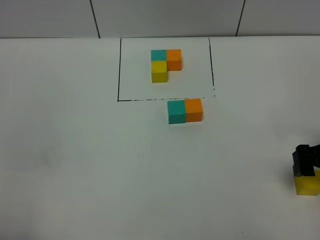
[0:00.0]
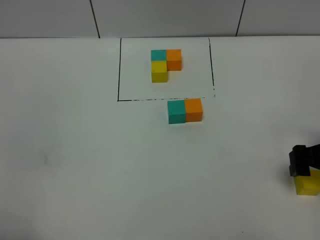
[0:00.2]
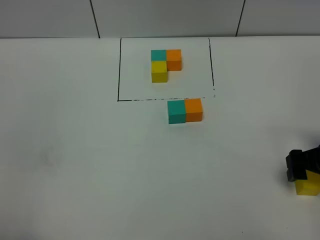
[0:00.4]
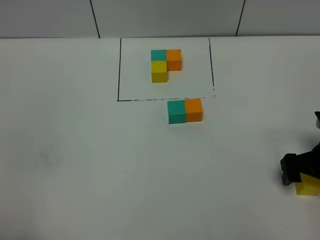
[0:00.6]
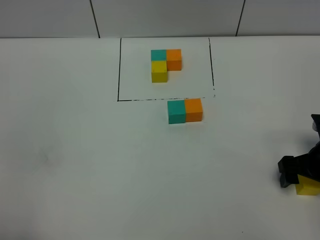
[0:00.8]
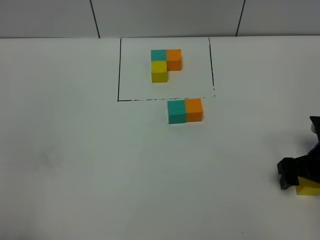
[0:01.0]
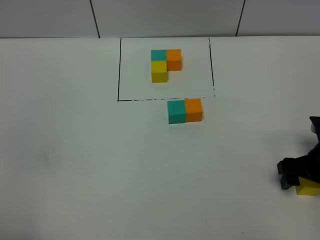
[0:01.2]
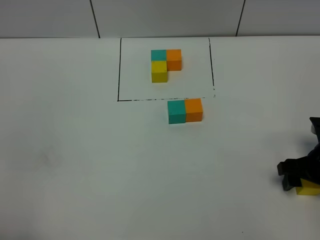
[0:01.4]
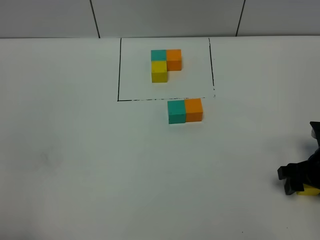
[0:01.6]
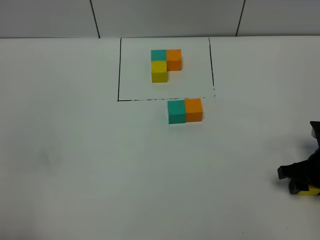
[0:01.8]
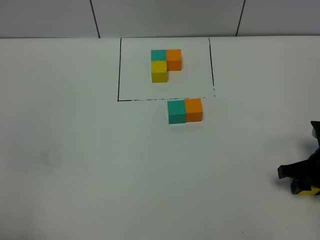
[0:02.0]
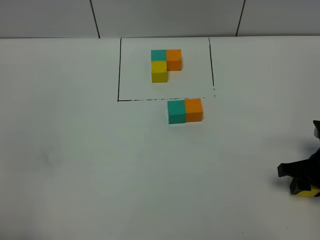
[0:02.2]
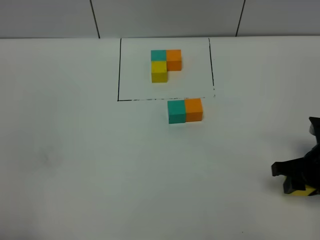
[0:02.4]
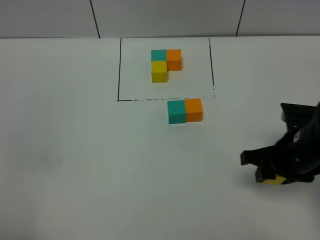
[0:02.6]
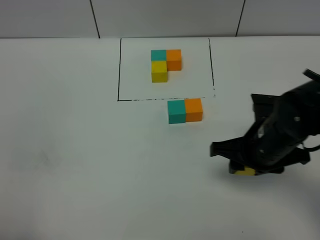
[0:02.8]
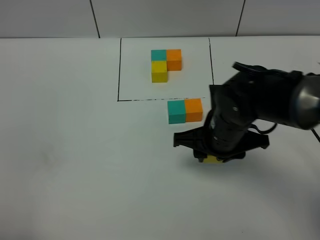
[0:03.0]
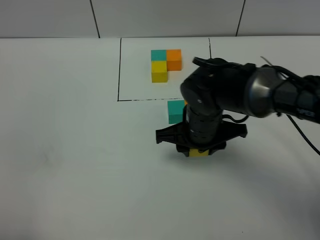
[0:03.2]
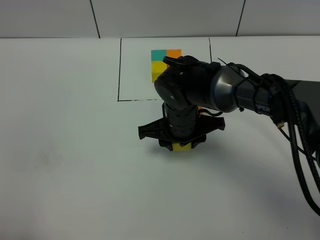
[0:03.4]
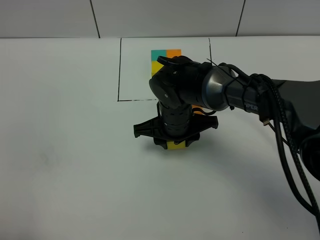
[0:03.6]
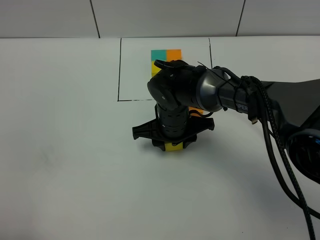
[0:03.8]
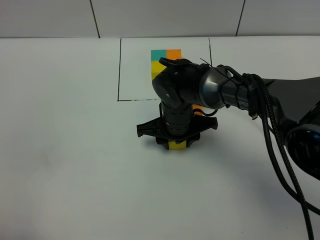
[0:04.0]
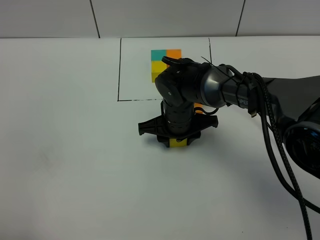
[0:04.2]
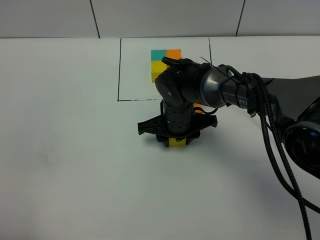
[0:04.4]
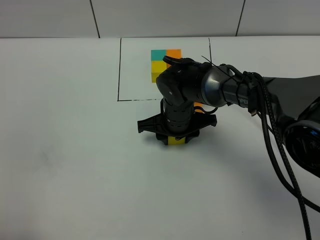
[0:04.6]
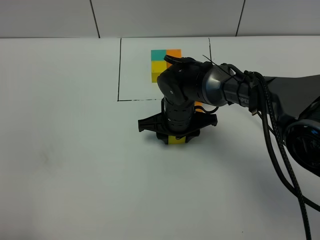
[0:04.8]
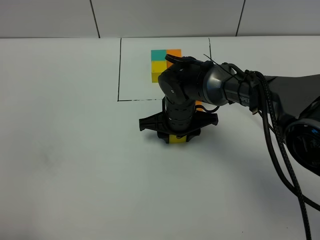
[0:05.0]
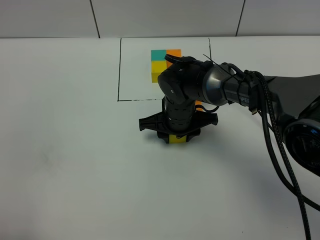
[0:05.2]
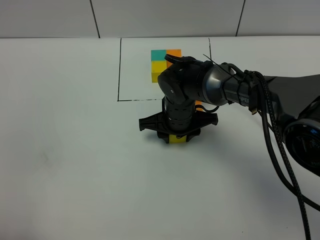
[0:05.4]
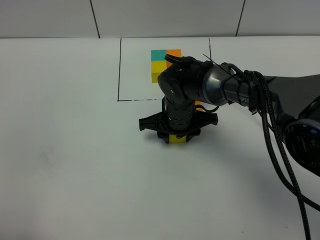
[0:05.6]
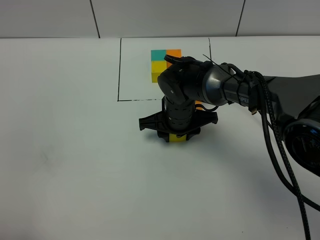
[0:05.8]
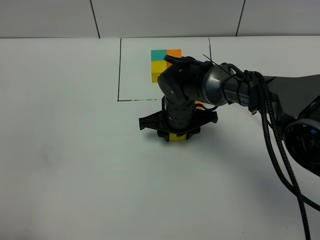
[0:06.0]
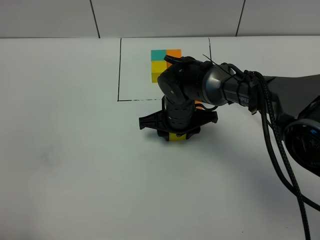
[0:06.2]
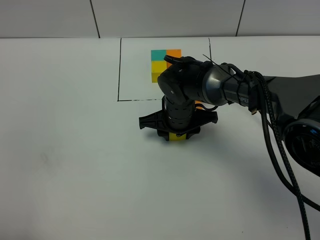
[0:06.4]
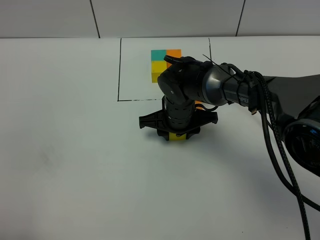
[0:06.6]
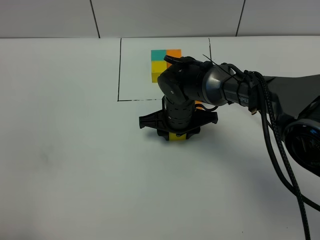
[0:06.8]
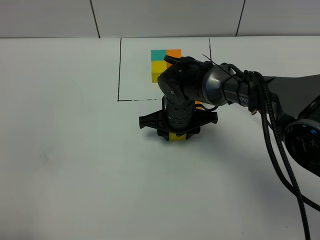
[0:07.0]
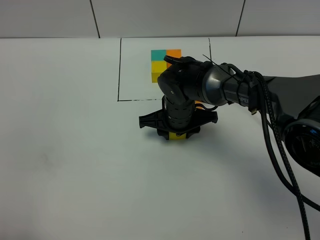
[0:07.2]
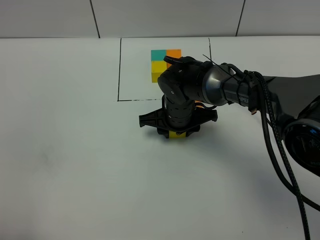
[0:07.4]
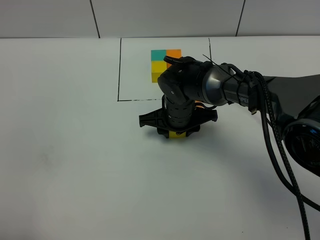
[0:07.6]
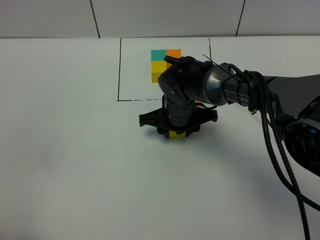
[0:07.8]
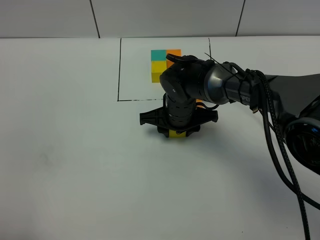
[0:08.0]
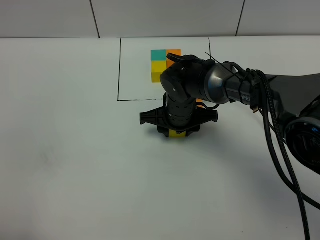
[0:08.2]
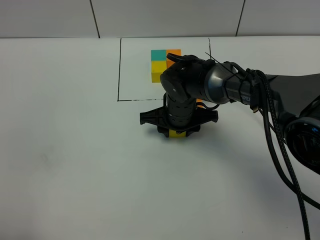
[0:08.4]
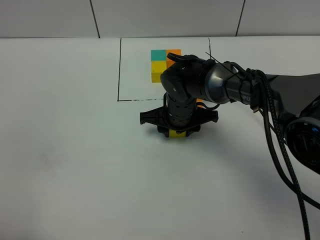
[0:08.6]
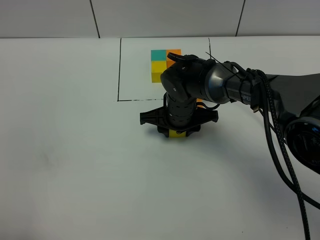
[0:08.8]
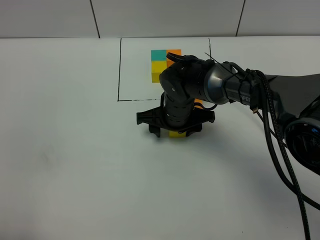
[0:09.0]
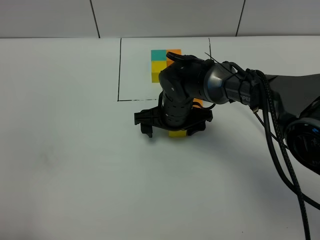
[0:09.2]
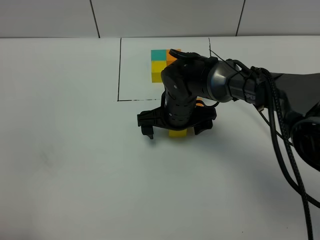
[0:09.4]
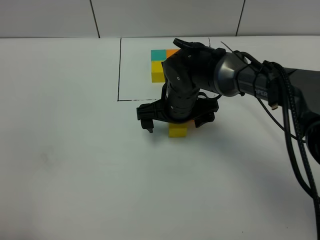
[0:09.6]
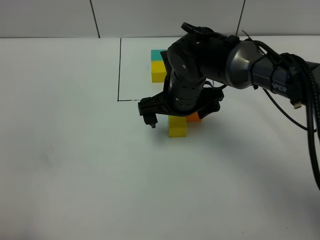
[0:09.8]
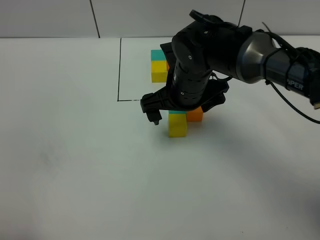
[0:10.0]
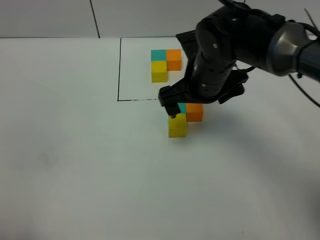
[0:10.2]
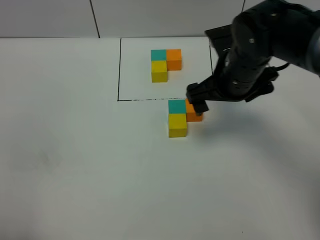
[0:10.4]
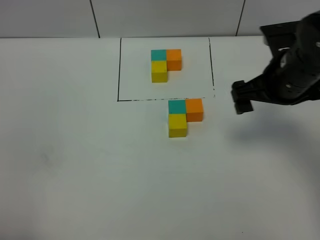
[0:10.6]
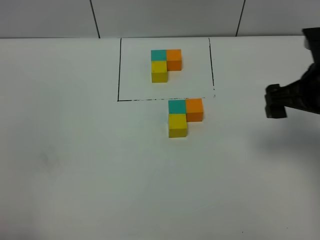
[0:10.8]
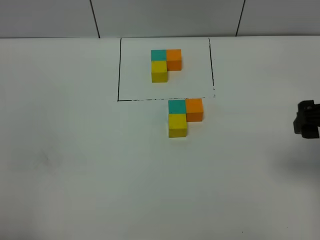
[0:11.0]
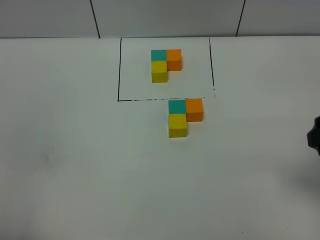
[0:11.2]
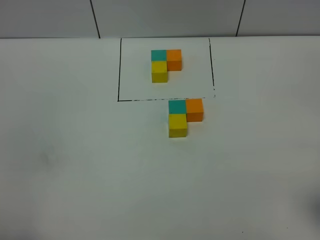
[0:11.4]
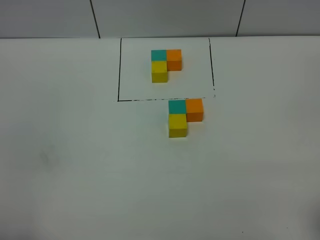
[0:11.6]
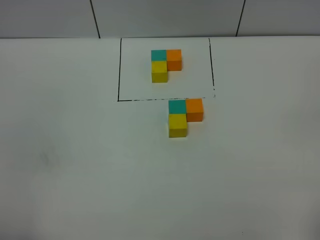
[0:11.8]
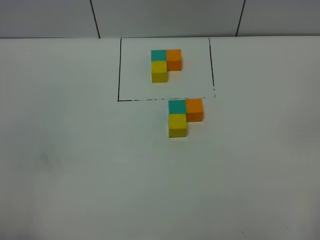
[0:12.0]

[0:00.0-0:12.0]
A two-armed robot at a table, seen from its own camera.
Task of the whole recording: According to the building block template in front, assemble the scattered blocks together.
Step, 0:00.0 to 0:08.8: Put the yellow build block on the behind of the green build block.
0:00.0 to 0:01.6: The right gripper goes about 5 cm downward, and closes its fingers.
0:01.6 to 0:03.0: The right gripper shifts about 20 cm to the left, and closes.
0:03.0 to 0:04.4: The right gripper is displaced forward, downward and to the left by roughly 10 cm.
0:04.4 to 0:07.6: Both grippers stay put.
0:07.6 to 0:09.0: The right gripper opens.
0:09.0 to 0:10.4: The right gripper moves upward and to the right, about 15 cm, and opens.
0:10.4 to 0:12.0: The right gripper is displaced backward and to the right by about 35 cm.

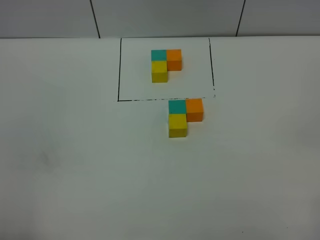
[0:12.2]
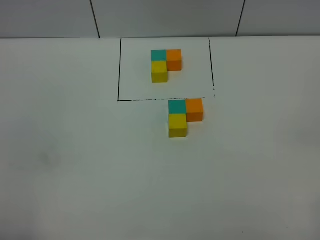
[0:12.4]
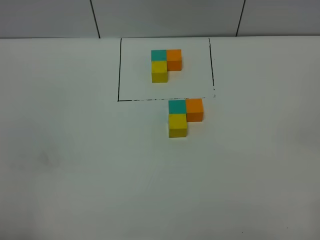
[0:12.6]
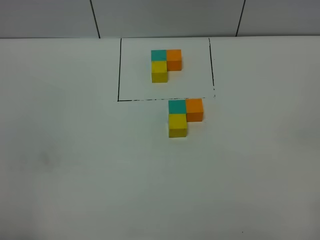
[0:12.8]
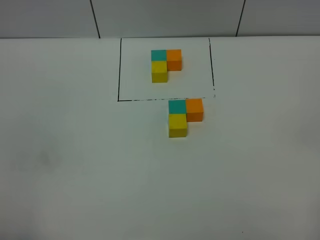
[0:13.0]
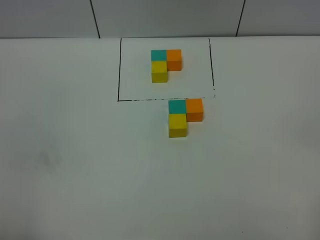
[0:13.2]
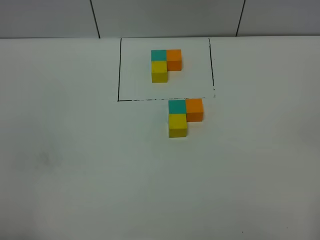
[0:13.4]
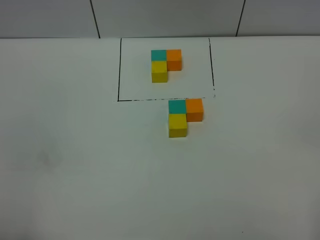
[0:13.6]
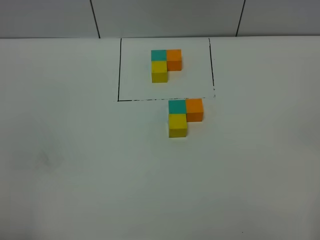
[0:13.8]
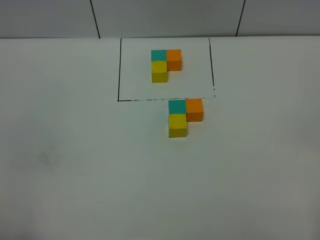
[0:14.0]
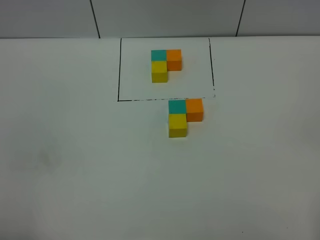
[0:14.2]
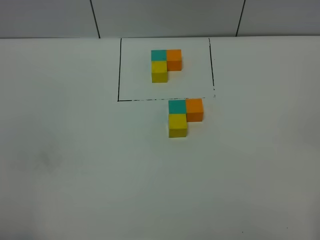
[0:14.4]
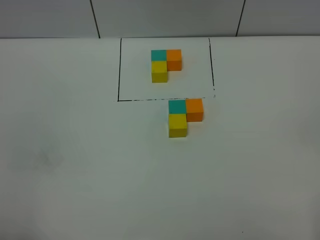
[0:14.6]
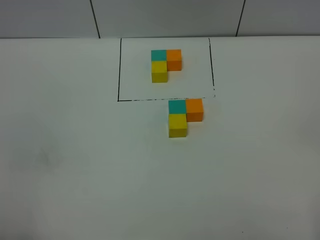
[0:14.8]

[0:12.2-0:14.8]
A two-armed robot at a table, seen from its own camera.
Task of the whole recording: According to the building block template in front, assemble the scattered blocks together.
0:13.4 to 0:14.8: Both grippers stay put.

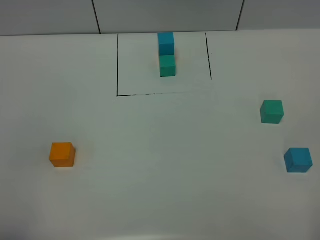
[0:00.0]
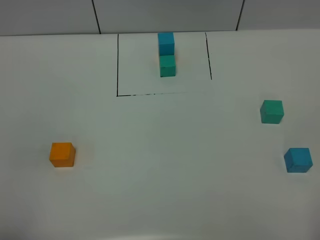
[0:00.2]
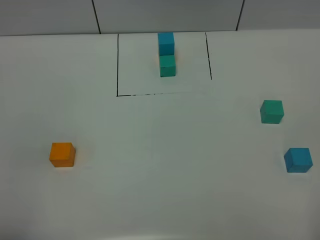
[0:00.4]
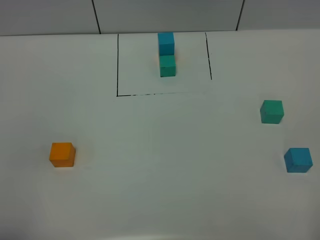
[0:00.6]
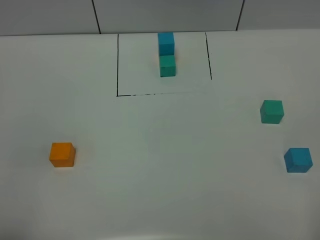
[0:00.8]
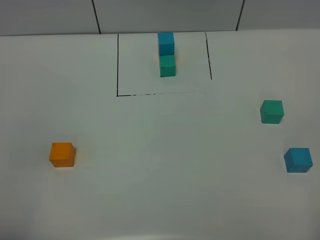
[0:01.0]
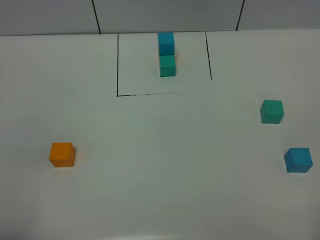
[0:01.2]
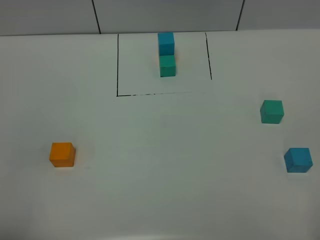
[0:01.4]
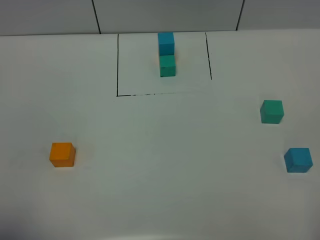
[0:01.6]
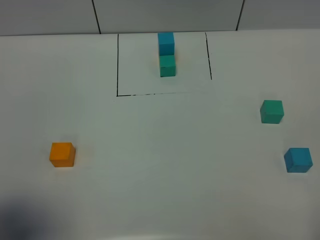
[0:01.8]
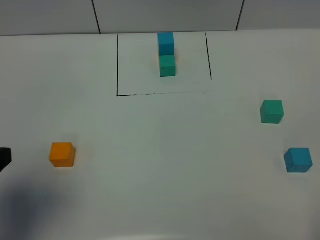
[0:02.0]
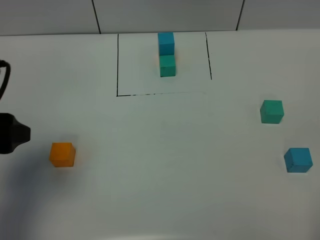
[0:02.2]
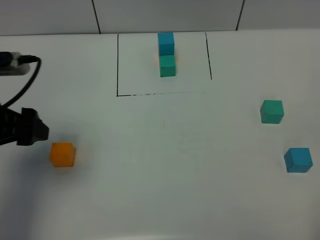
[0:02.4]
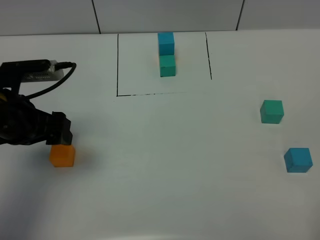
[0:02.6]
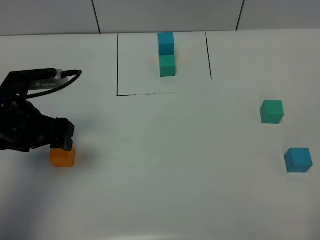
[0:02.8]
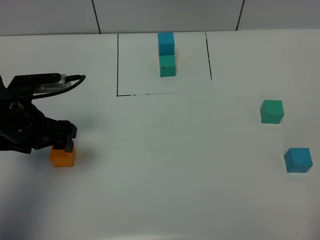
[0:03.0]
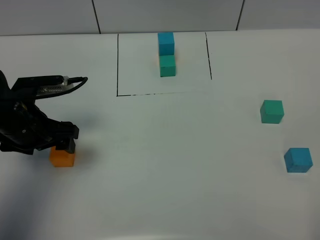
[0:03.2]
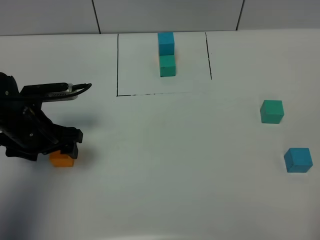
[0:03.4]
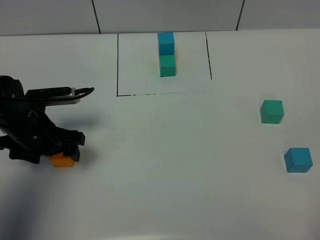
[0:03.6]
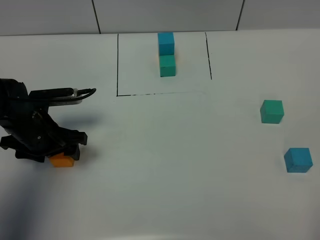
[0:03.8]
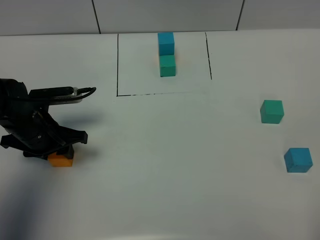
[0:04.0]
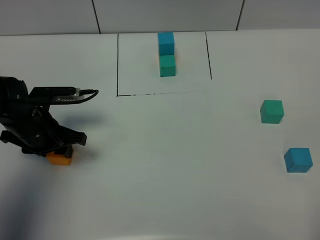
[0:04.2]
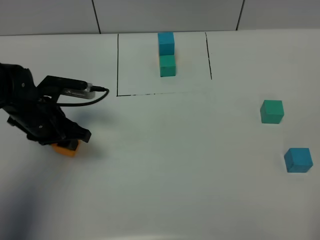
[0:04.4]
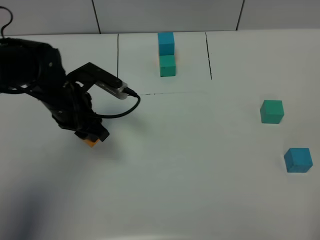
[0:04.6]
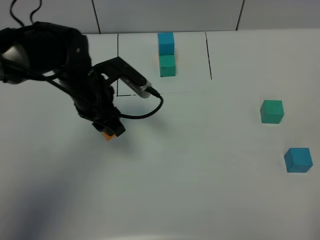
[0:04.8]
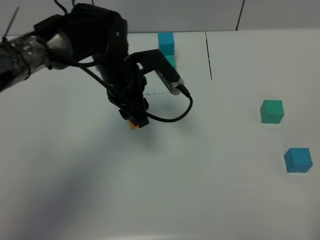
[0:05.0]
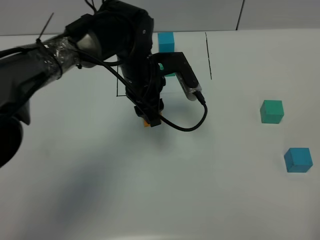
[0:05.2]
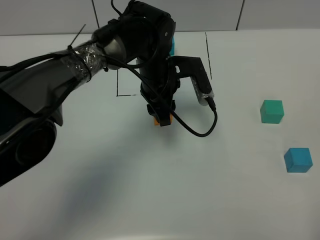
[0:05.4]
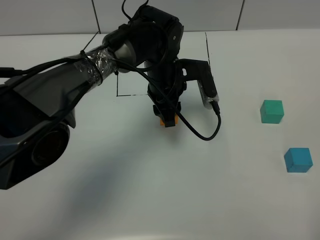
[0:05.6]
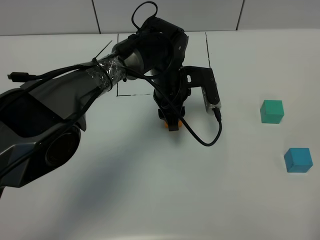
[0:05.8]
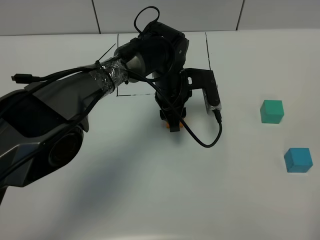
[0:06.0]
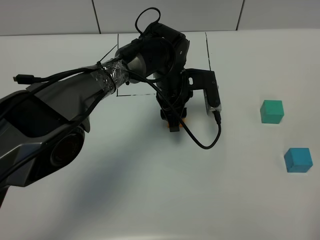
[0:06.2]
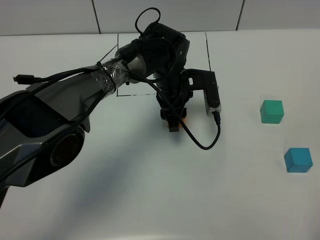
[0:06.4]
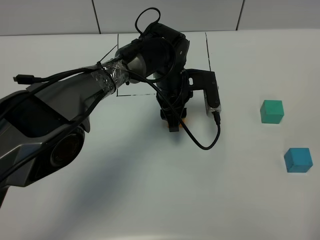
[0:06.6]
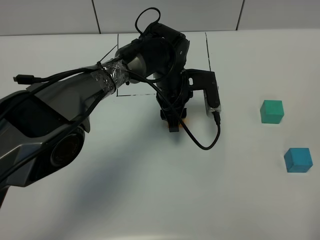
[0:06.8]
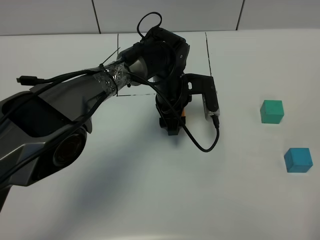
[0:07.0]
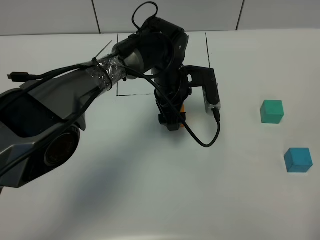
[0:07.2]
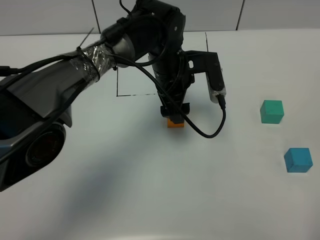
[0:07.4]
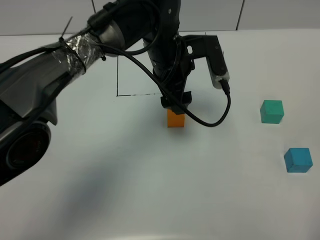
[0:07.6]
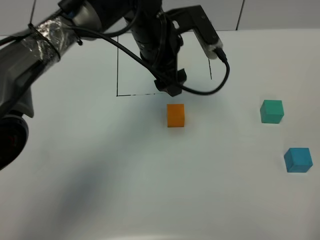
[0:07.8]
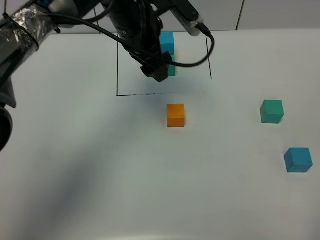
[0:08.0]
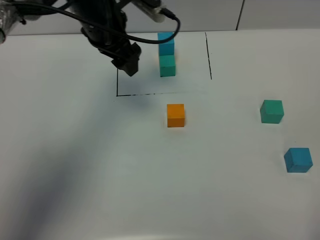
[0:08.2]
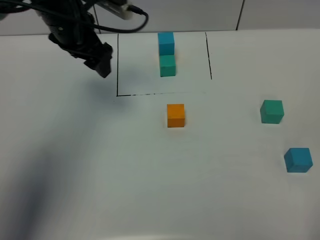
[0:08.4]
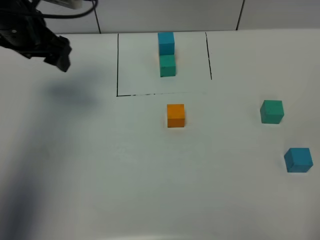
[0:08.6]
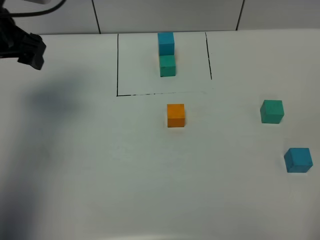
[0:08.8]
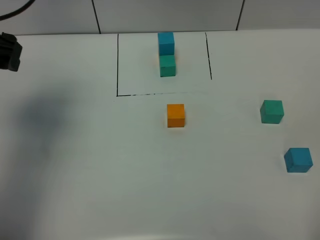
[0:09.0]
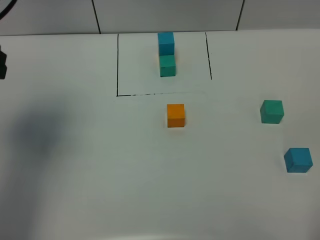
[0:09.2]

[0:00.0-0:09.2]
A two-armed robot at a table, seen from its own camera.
Task of the whole recording: According to the building block template in front, assemble the scattered blocks together.
Step, 0:00.0 to 0:06.8: Put the orange build block in the center of the table.
0:01.6 to 0:03.0: The left gripper travels forward and downward by about 30 cm.
0:03.0 to 0:04.6: The left gripper heads to the right and forward, covering about 10 cm, and closes up.
0:04.6 to 0:06.2: The left gripper travels to the right and forward by approximately 20 cm.
0:06.2 to 0:07.6: The left gripper moves upward, some 10 cm, and opens its fingers.
0:07.6 to 0:09.2: The left gripper moves to the left and upward, roughly 30 cm.
